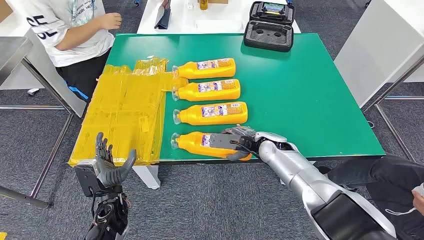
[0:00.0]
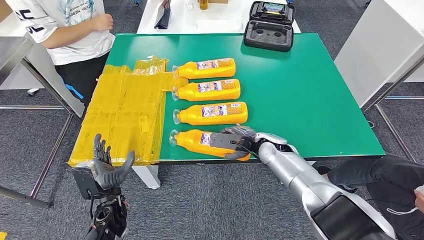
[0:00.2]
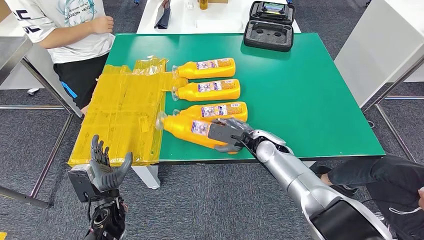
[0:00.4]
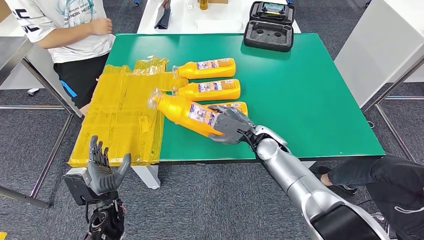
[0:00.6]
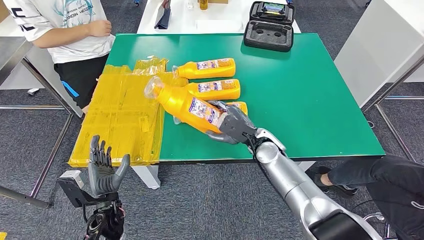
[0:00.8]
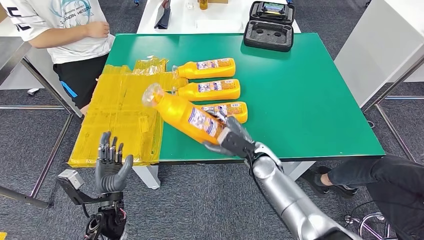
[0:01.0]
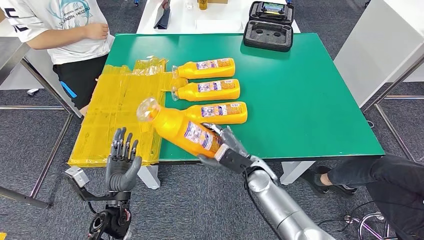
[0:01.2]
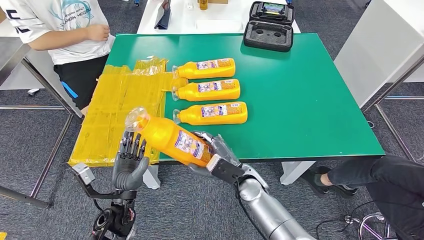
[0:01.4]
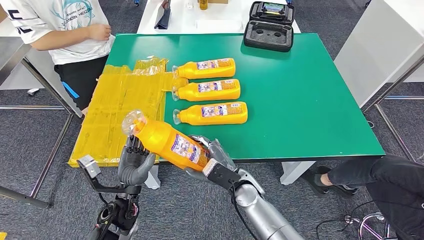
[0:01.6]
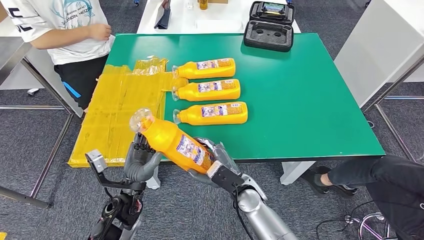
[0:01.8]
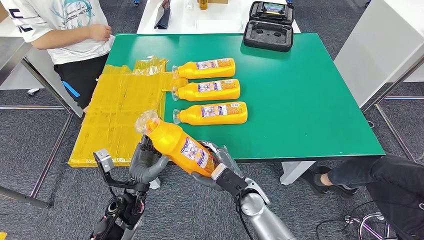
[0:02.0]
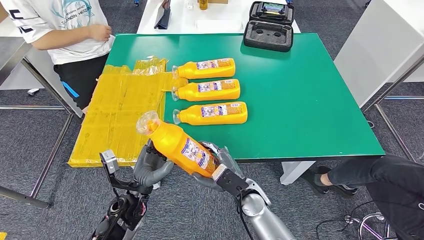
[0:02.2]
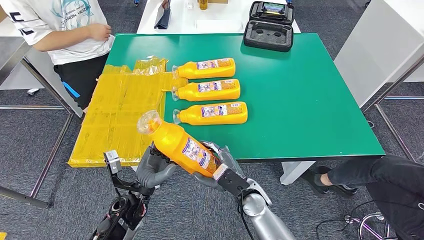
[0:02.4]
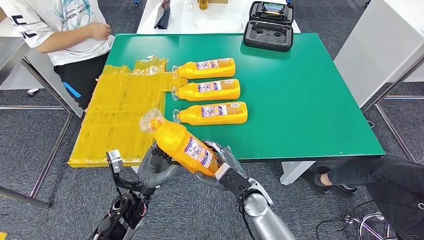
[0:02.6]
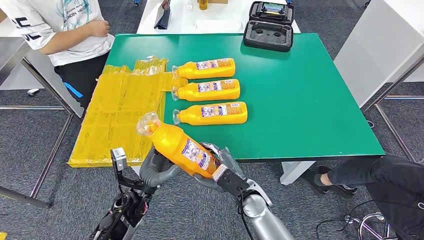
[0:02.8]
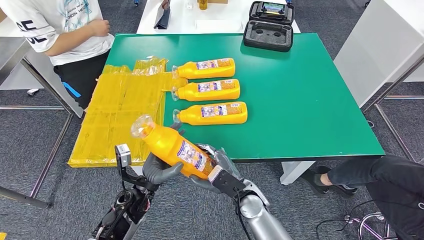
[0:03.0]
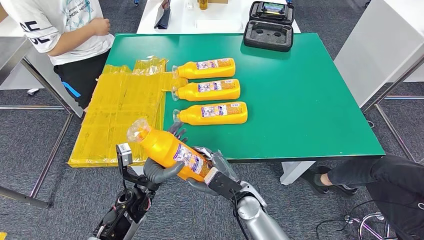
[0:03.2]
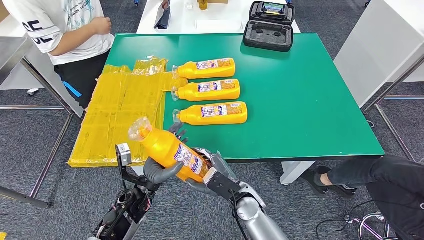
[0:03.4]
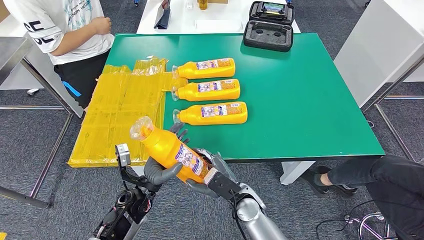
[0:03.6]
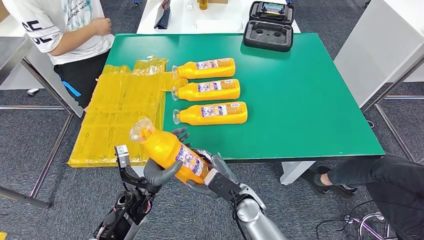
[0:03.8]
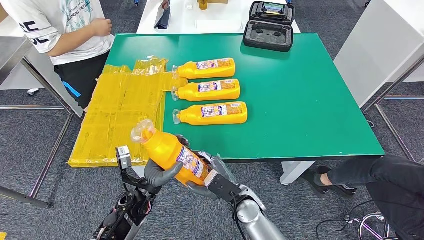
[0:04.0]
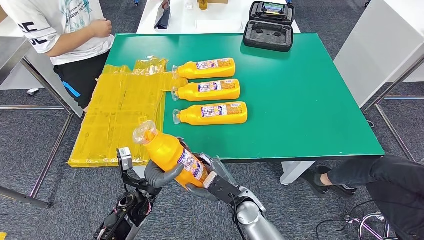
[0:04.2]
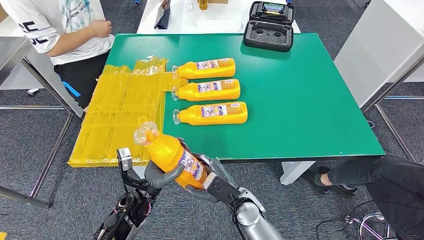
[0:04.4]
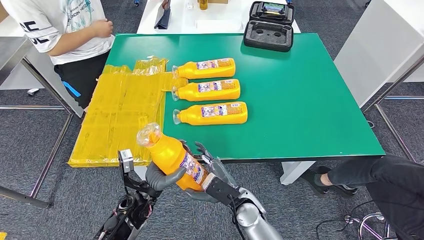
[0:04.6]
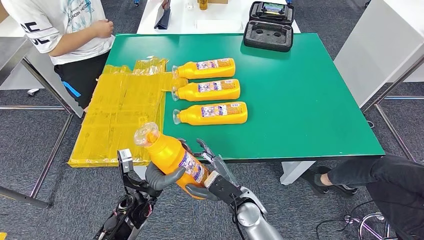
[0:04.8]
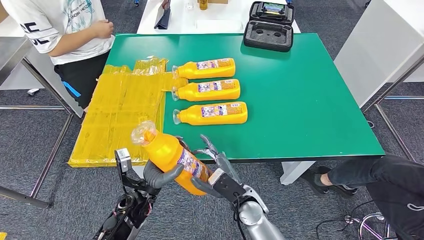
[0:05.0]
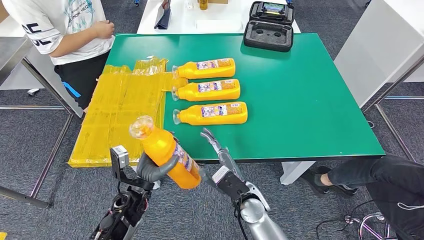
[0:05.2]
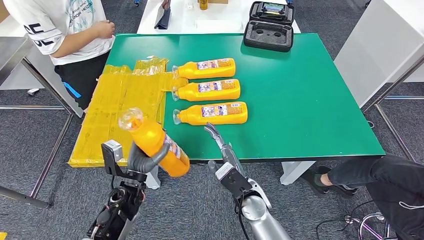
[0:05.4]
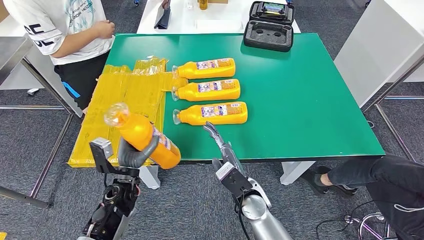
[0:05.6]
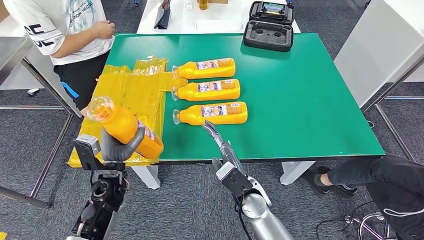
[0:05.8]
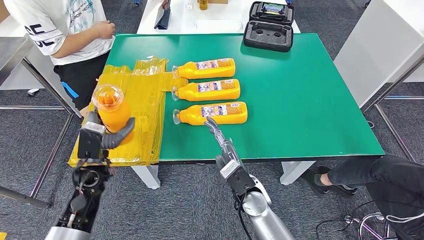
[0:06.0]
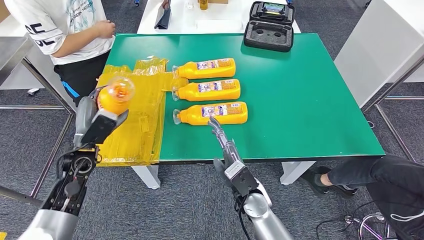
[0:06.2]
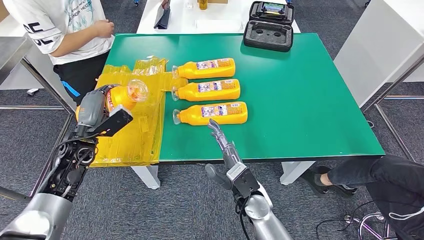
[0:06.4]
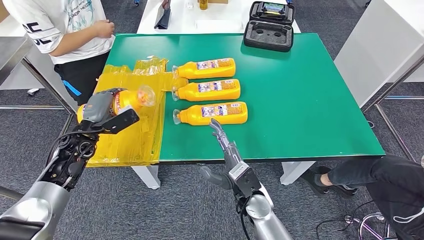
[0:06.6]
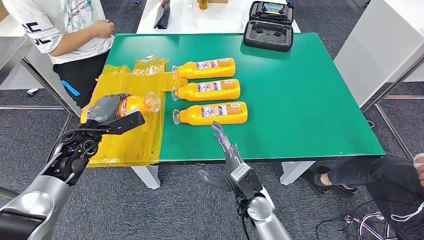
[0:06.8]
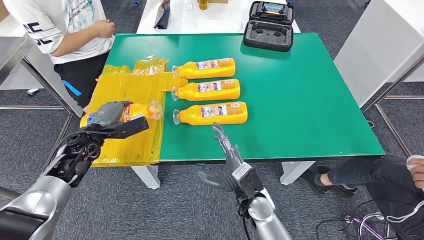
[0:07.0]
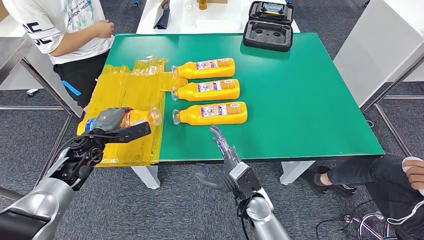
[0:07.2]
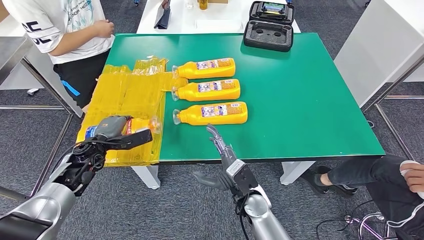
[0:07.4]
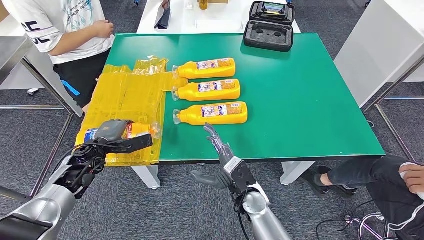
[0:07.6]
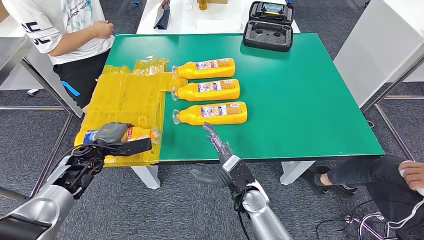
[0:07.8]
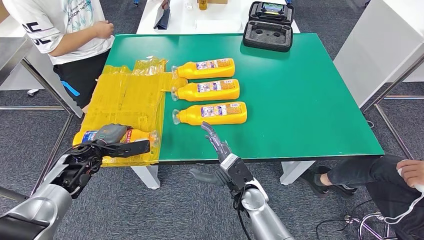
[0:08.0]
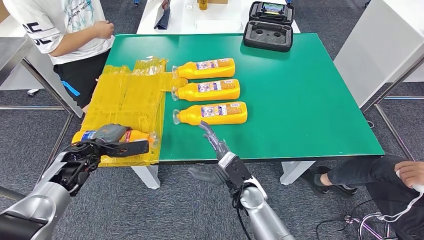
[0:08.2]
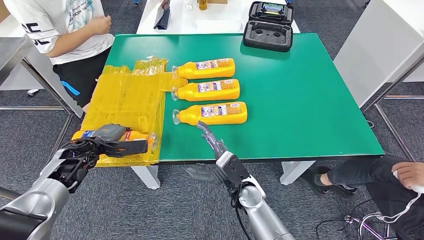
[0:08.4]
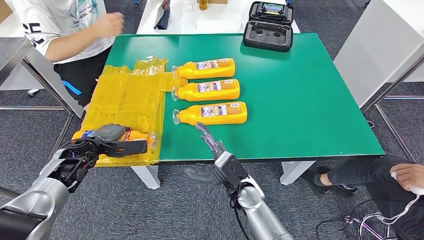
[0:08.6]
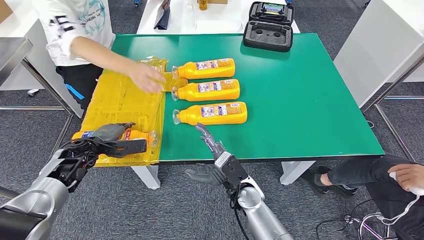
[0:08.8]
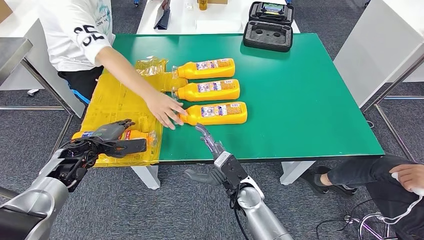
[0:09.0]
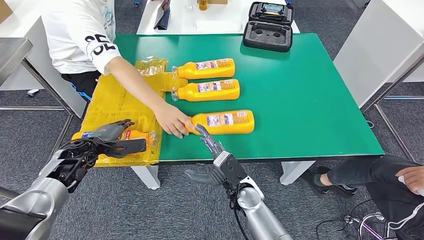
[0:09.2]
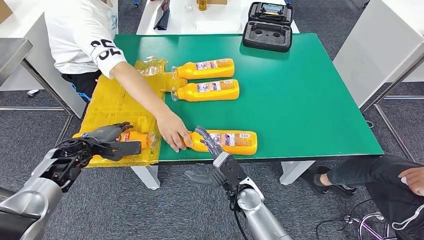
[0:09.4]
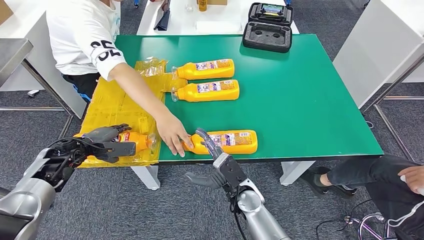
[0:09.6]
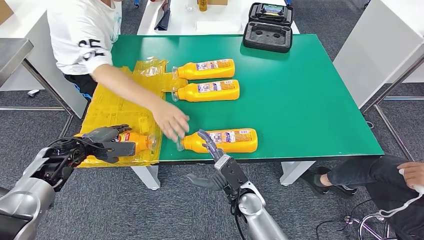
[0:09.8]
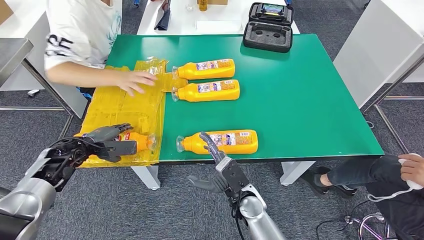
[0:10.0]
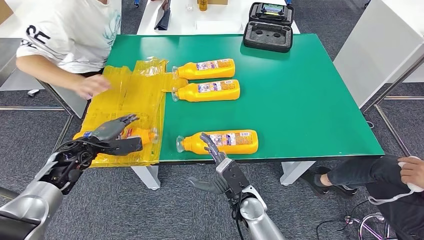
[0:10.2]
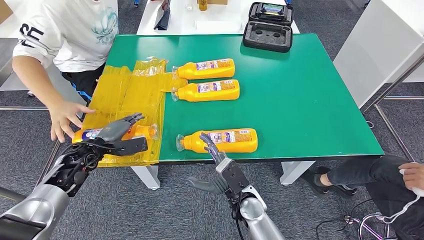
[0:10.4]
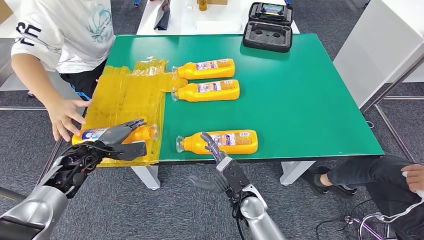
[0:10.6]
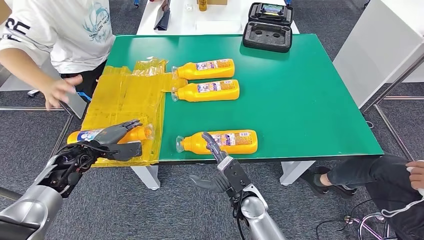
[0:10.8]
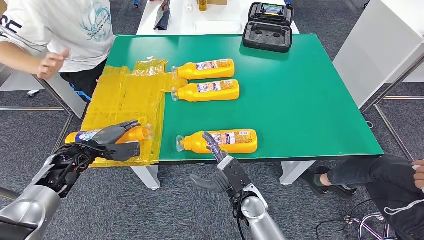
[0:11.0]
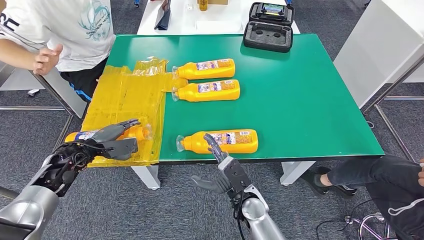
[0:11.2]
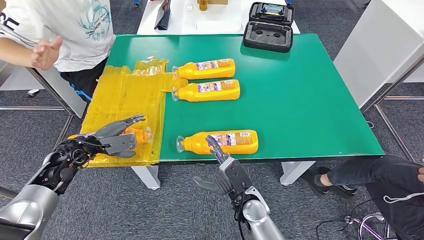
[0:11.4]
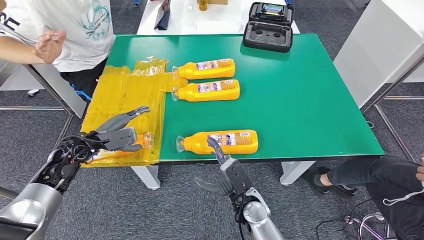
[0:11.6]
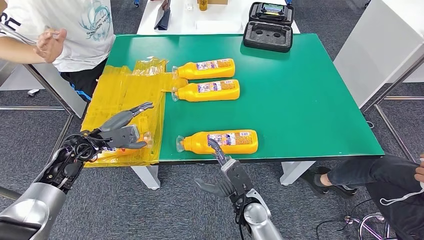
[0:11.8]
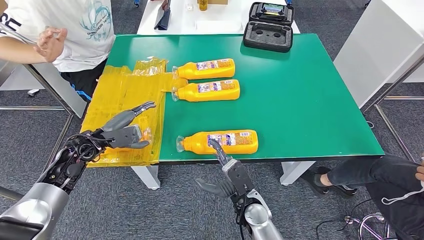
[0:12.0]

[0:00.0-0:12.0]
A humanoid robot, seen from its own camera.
Step, 0.0 to 3.6 s: Take the bottle from the table.
Step, 4.0 to 9.8 s: Flip the bottle to face forward.
3.0 to 4.4 s: The hands make only small movements.
4.4 to 6.0 s: The left hand shifts roughly 15 cm to the left, upward and forward.
6.0 to 7.6 s: The left hand heads forward, covering about 5 cm.
7.6 to 9.0 s: The hands make only small movements.

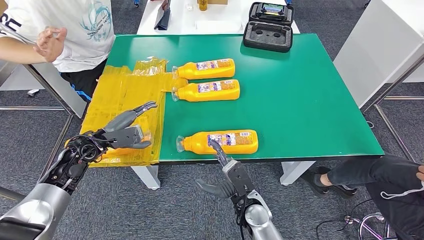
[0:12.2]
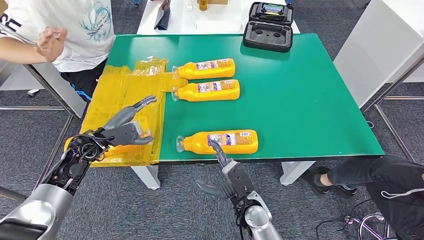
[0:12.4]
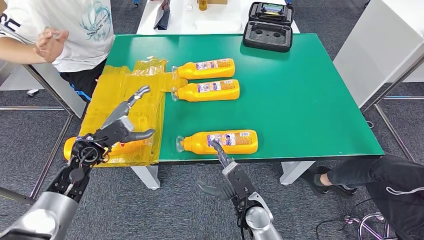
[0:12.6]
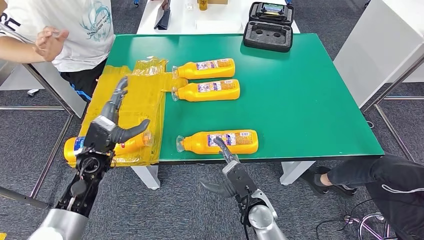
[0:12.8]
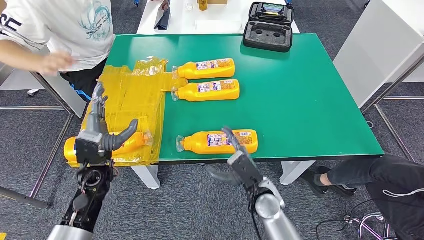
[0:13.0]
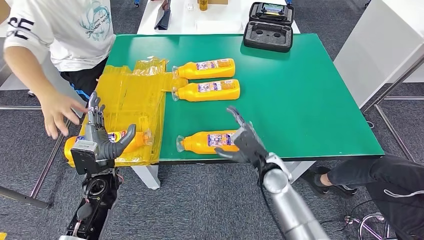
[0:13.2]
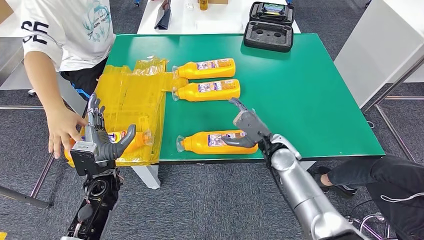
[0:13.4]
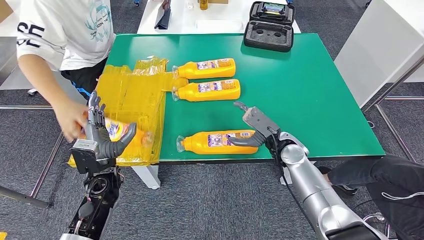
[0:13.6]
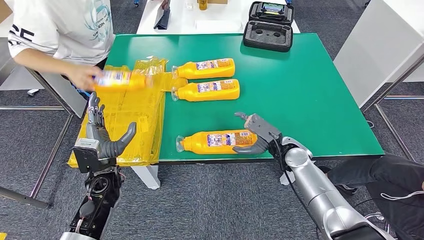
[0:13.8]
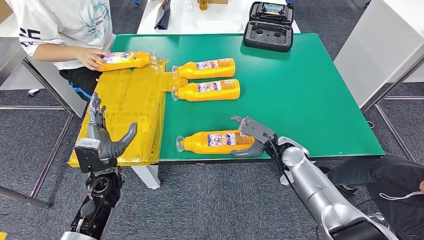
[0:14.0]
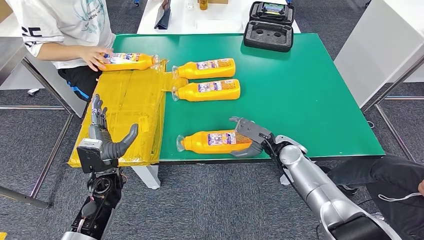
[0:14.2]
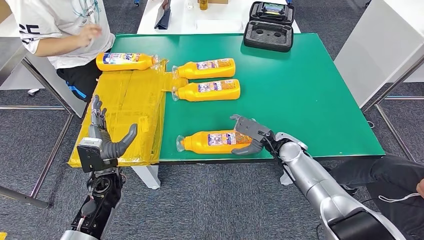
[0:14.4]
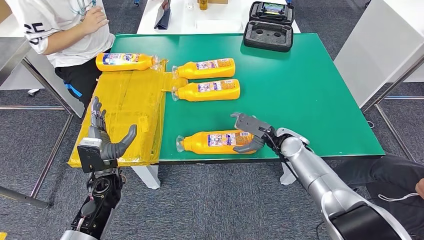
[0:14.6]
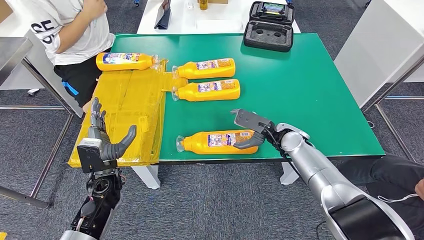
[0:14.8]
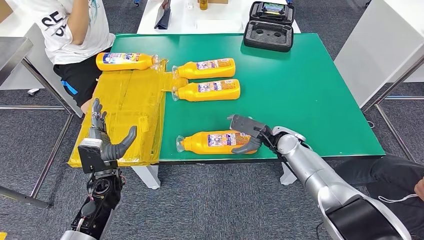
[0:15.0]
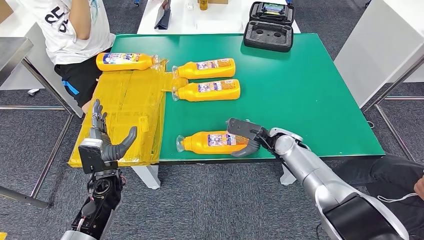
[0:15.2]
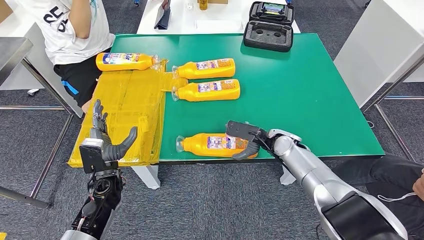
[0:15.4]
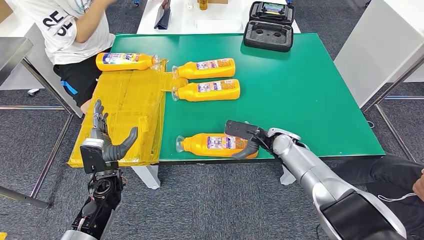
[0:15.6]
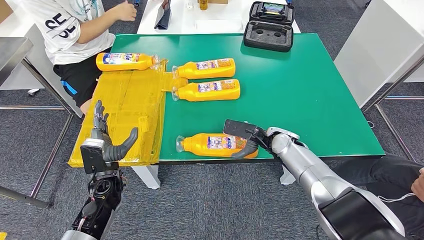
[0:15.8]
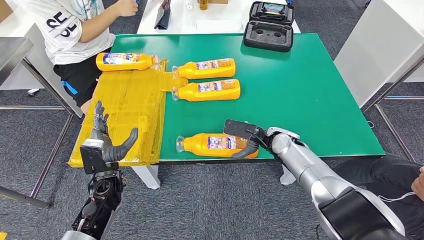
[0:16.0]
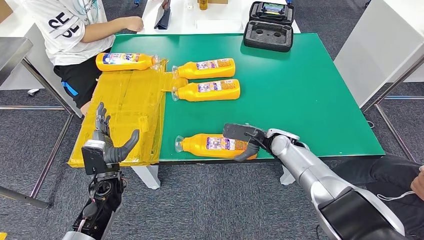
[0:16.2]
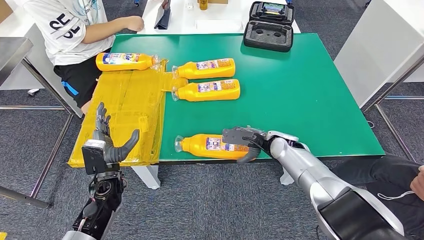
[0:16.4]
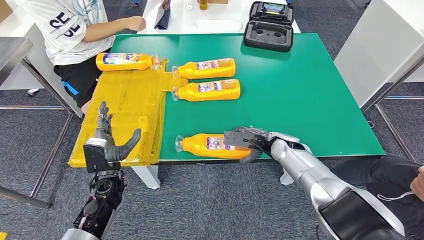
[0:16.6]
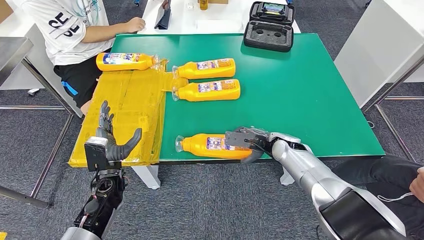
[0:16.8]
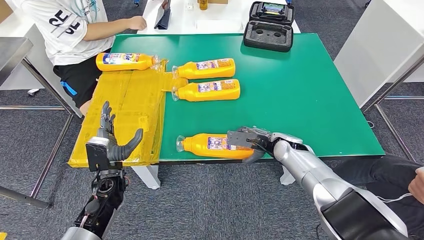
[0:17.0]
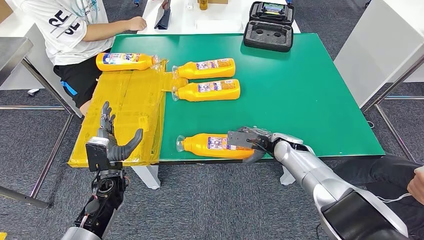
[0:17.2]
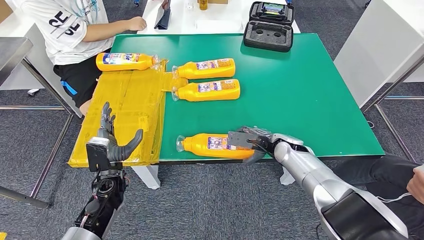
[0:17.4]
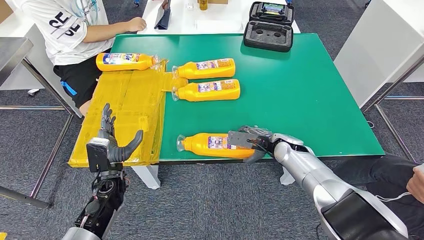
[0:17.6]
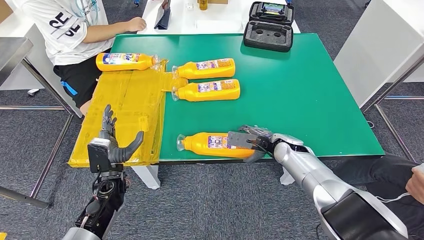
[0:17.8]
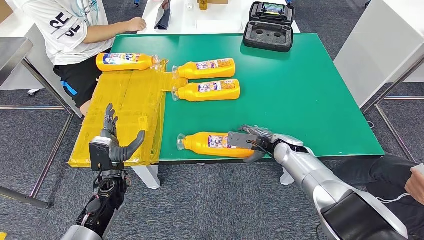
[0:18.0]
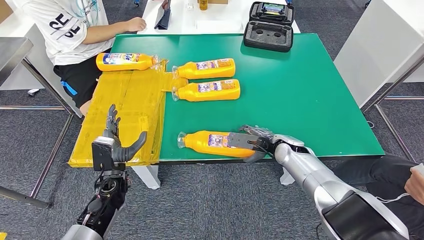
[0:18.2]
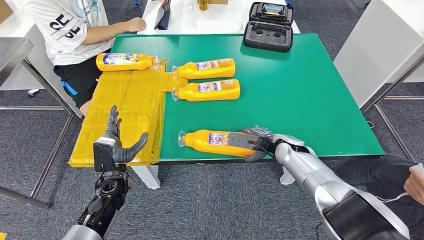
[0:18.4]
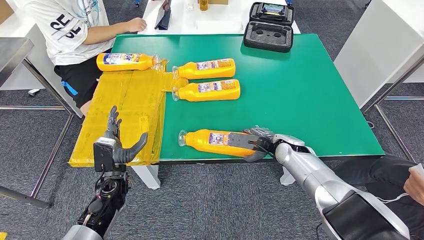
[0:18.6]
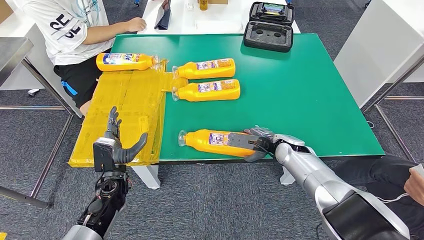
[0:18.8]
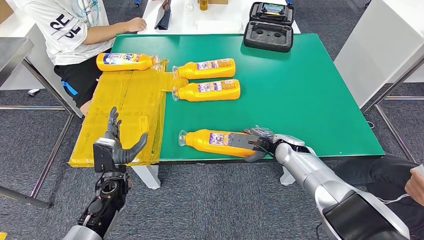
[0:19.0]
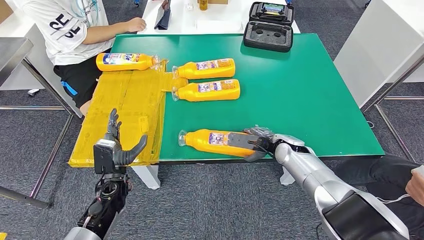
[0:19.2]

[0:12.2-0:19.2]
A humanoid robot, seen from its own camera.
15.0 to 16.4 s: The hands stay close to where they were, moving slightly.
16.4 to 17.8 s: There are only small adjustments of the hands.
17.8 to 19.2 s: Both hands stay put.
